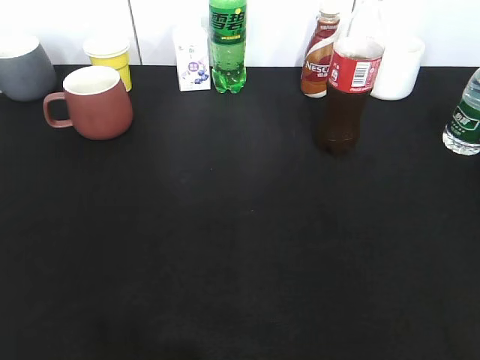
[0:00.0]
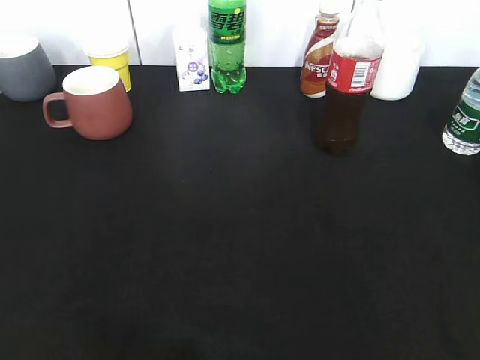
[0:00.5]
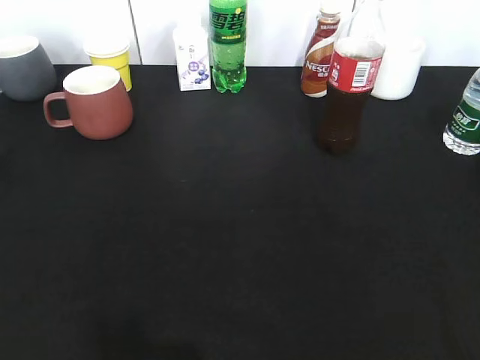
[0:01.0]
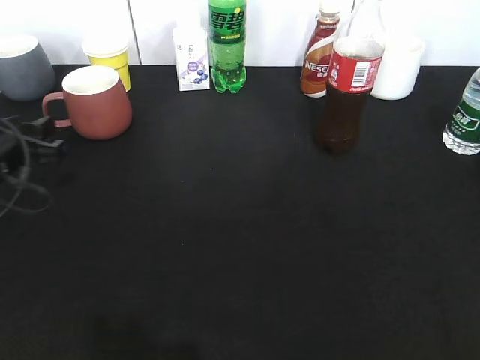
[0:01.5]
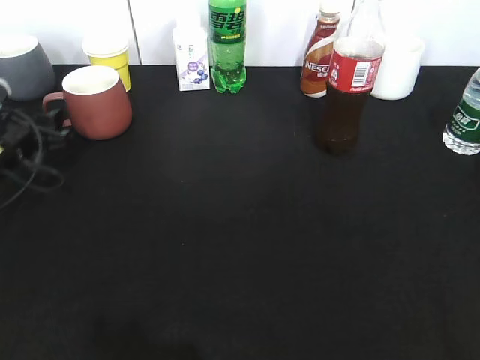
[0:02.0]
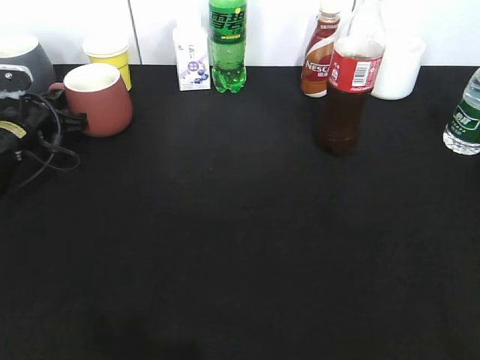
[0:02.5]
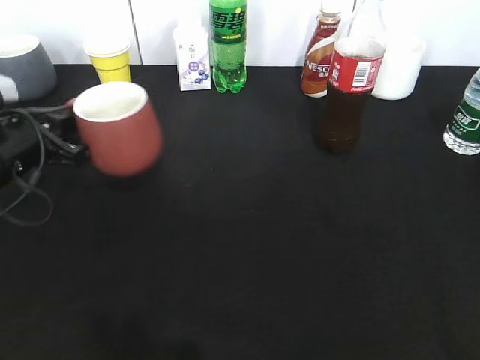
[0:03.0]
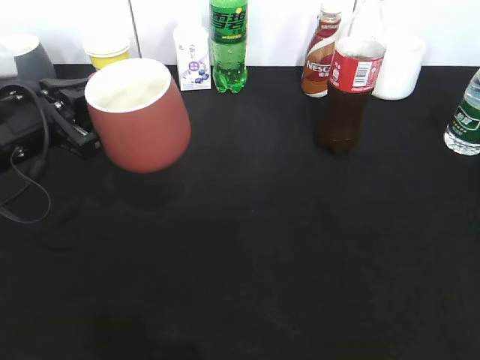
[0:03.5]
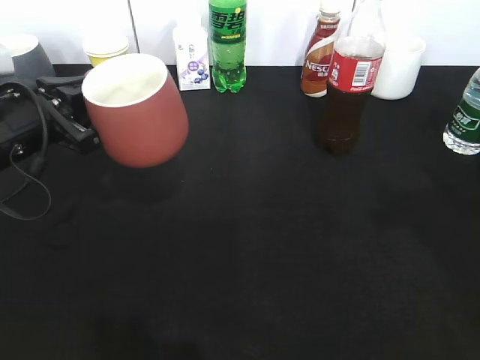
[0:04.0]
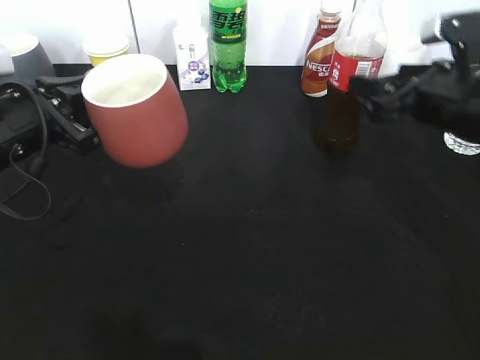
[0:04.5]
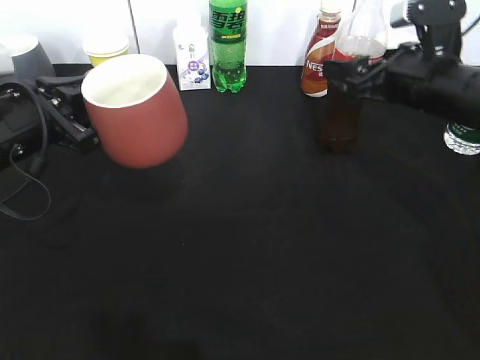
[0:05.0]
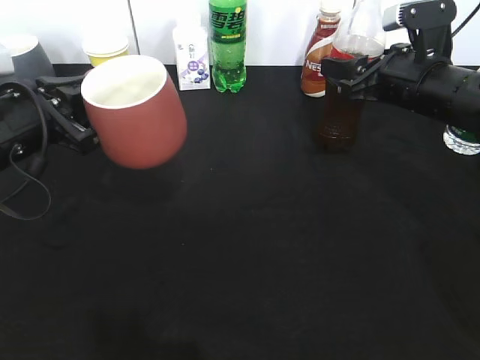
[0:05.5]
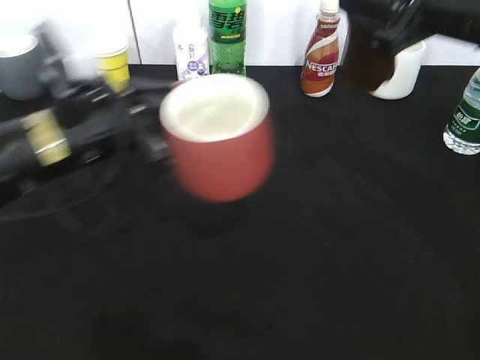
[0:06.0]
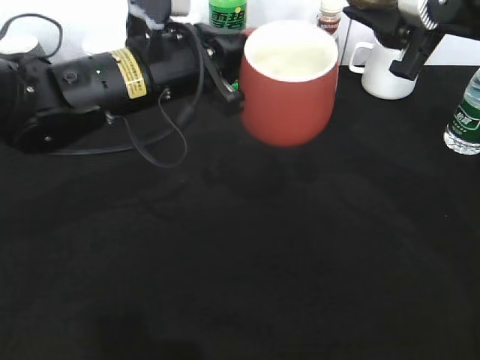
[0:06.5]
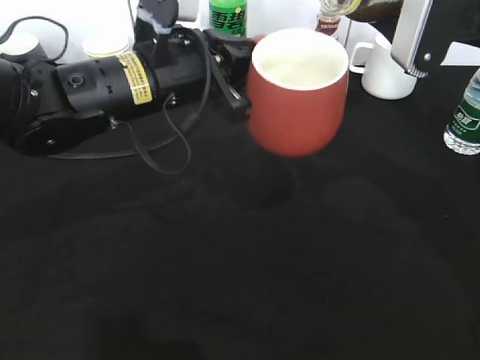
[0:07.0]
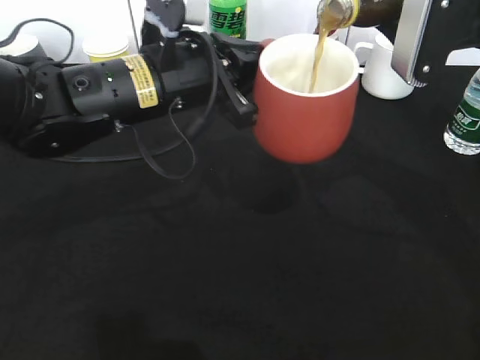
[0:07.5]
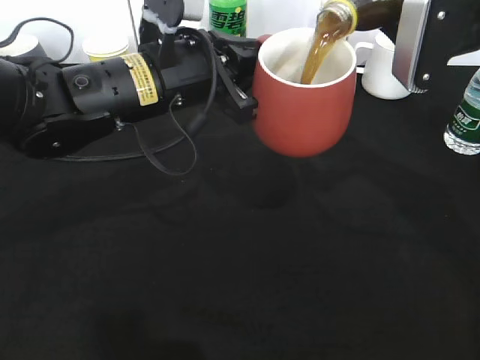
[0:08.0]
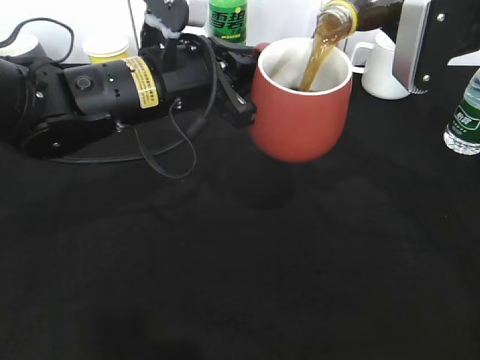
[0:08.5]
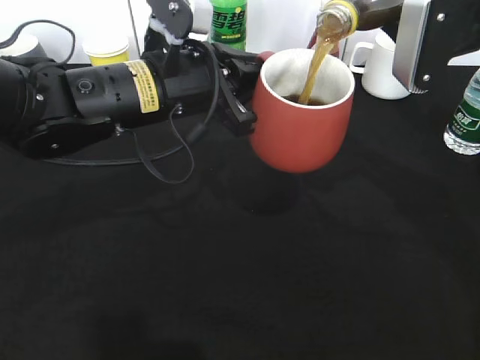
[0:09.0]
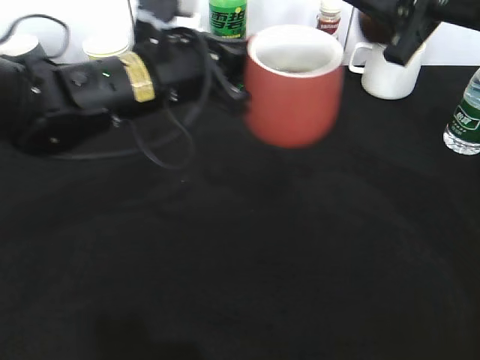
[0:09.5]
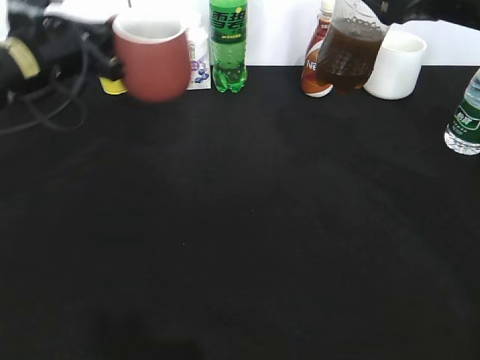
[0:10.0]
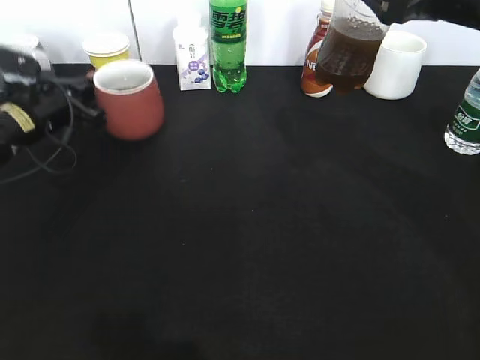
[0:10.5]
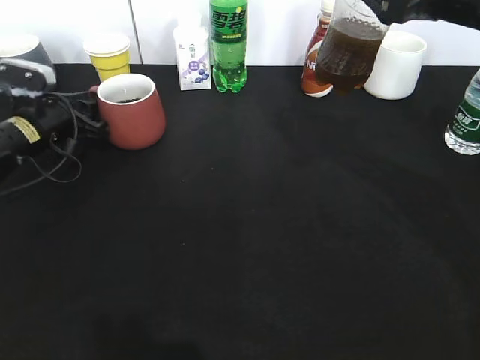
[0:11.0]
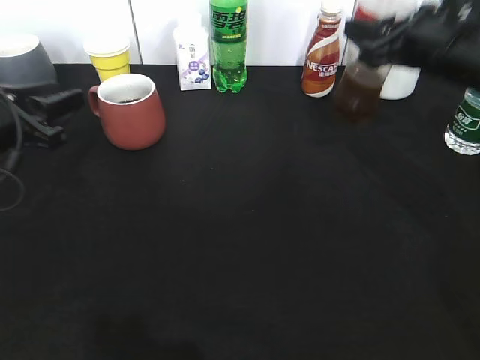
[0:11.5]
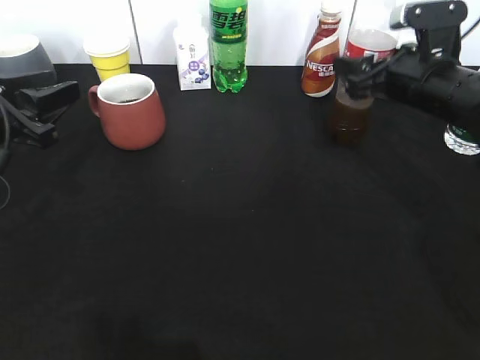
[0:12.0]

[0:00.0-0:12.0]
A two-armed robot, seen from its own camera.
Step, 0:00.0 to 0:02.5: Grasp the red cup with left gripper.
Step, 0:03.0 to 0:03.5: Lift the red cup with left gripper.
Step, 0:04.5 to 0:05.5: Grasp the bottle with cola with right gripper.
0:00.0 to 0:02.0: The left gripper heads forward and downward, covering some 40 cm, and opens up.
0:02.0 to 0:04.0: The right gripper shifts roughly 20 cm forward; the left gripper goes about 10 cm upward, backward and to the right, and closes.
0:04.0 to 0:06.0: The right gripper moves forward and to the left, approximately 15 cm, and closes up. The left gripper moves to the right, about 10 cm.
0:06.0 to 0:08.0: The left gripper is displaced to the right by some 5 cm.
0:08.0 to 0:10.0: The left gripper goes about 15 cm to the left and forward.
0:10.0 to 0:12.0: The left gripper travels backward by approximately 10 cm, and opens. The right gripper travels downward and forward by about 15 cm, and opens its fingers.

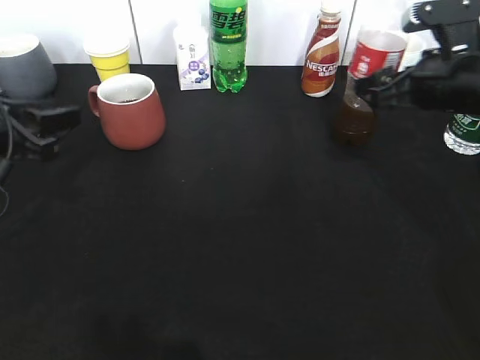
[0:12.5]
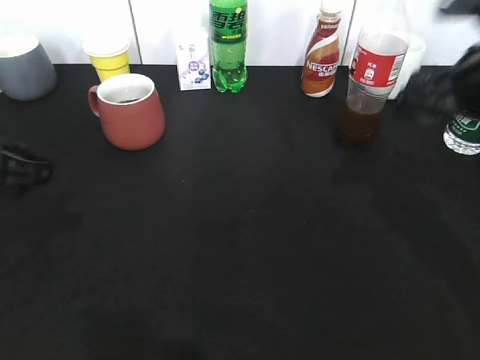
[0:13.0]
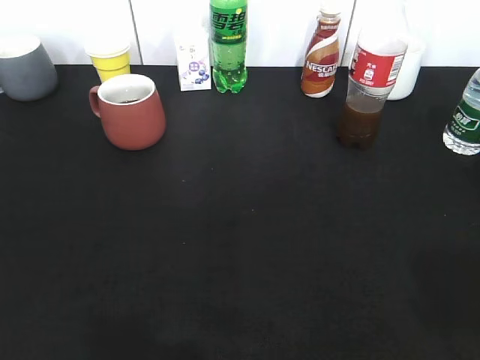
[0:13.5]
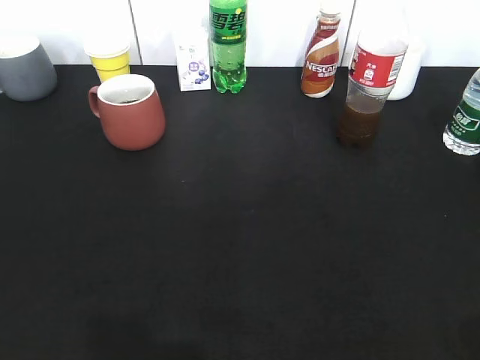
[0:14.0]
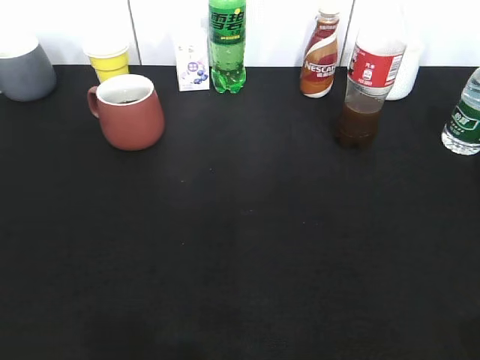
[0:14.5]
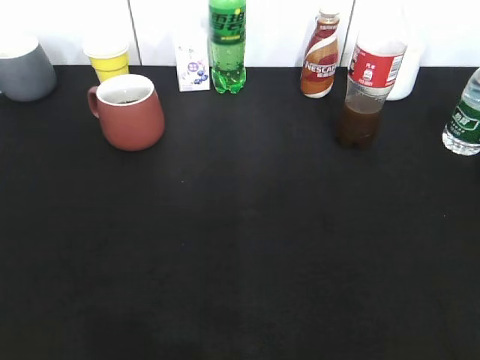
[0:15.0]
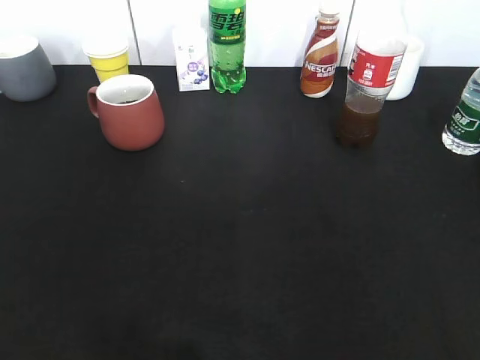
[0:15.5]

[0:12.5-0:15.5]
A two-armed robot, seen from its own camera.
0:12.5 to 0:14.0: Both grippers travel together backward, about 30 cm. The right gripper closes.
0:14.0 to 0:15.5: The grippers make only small movements.

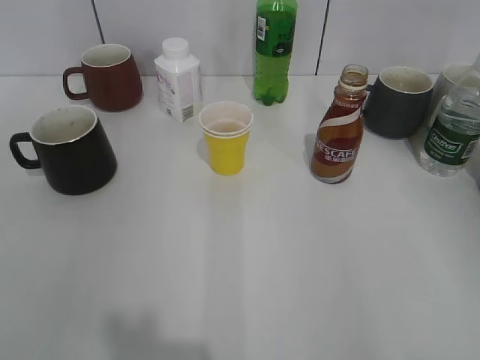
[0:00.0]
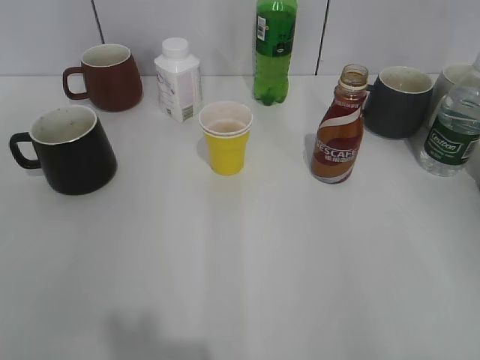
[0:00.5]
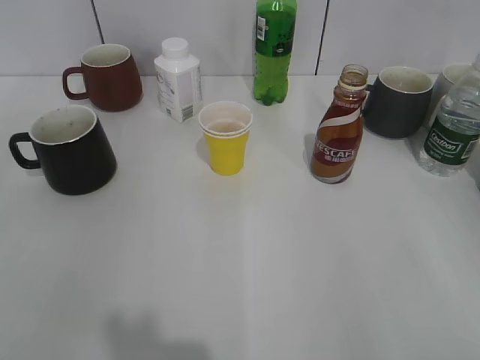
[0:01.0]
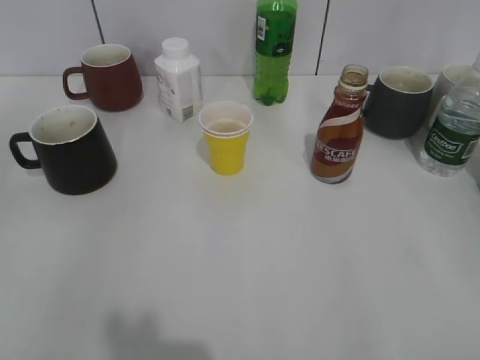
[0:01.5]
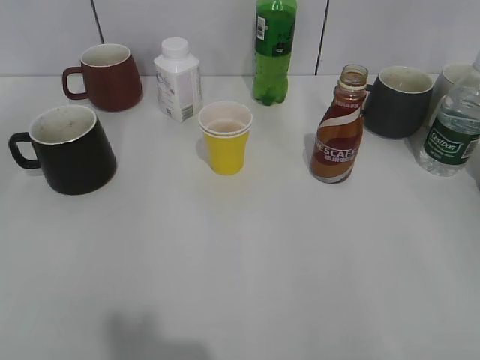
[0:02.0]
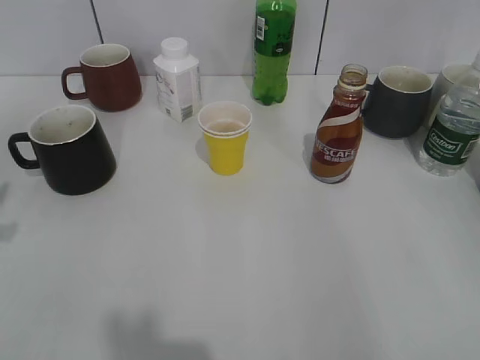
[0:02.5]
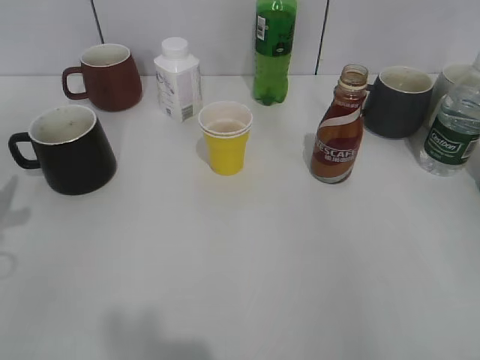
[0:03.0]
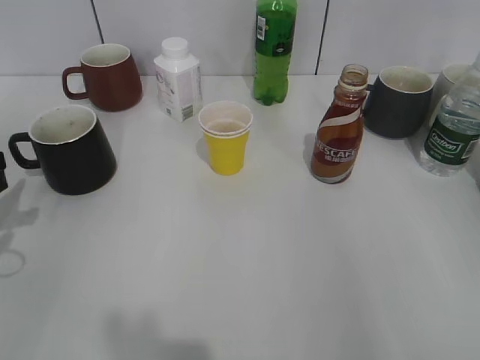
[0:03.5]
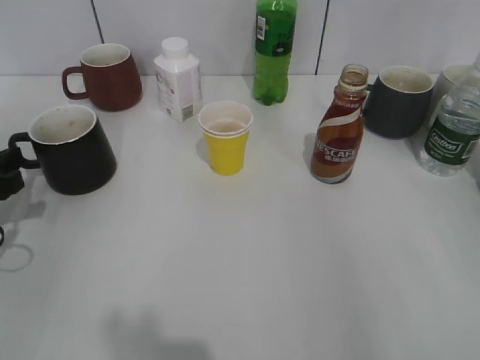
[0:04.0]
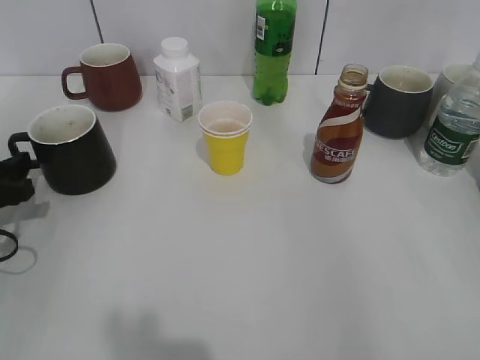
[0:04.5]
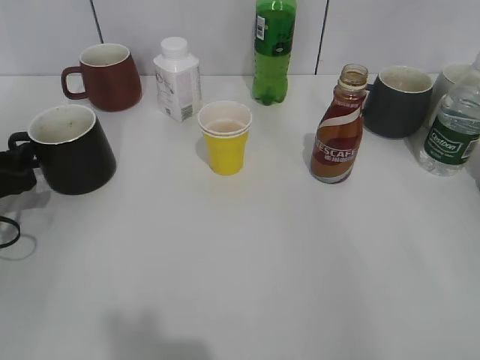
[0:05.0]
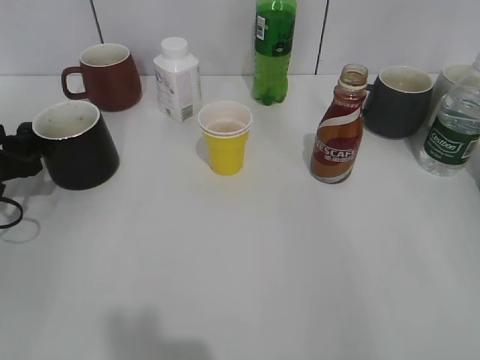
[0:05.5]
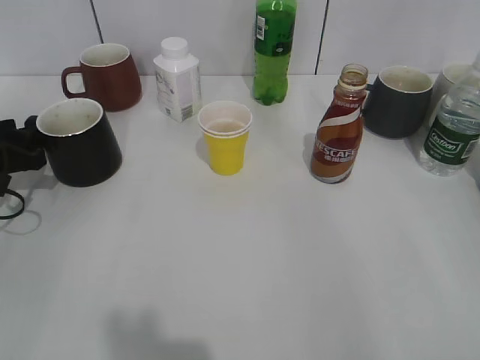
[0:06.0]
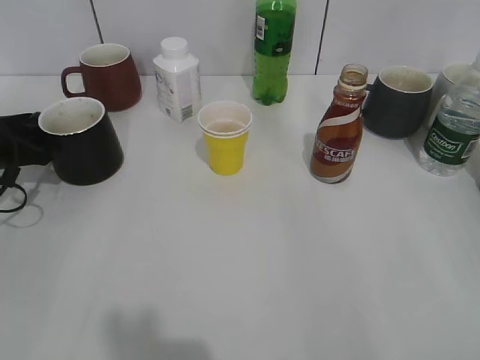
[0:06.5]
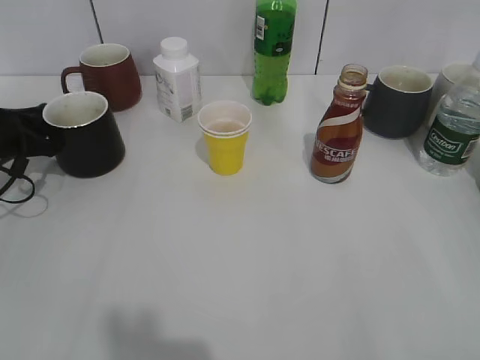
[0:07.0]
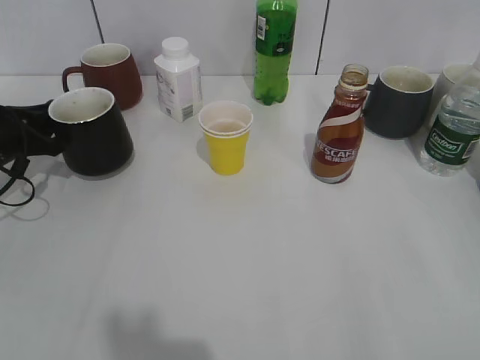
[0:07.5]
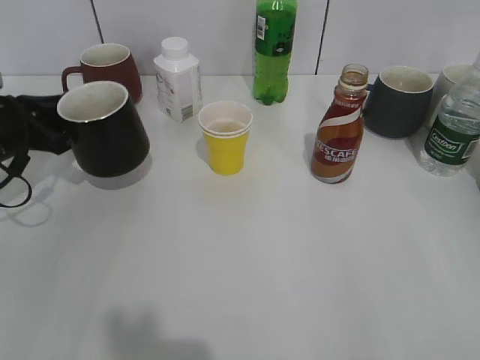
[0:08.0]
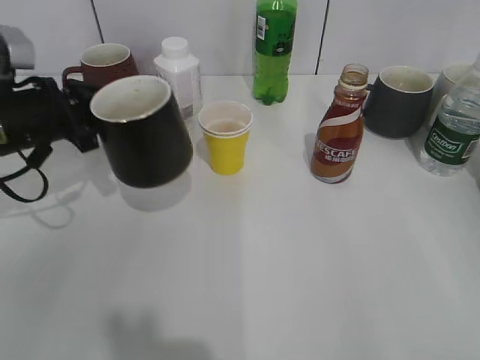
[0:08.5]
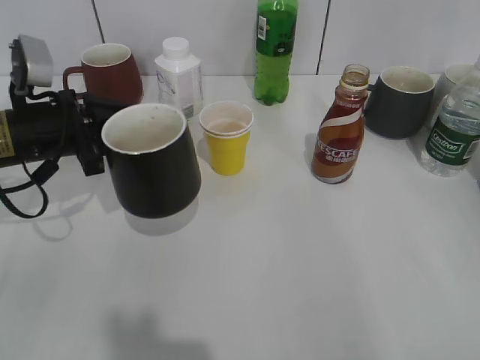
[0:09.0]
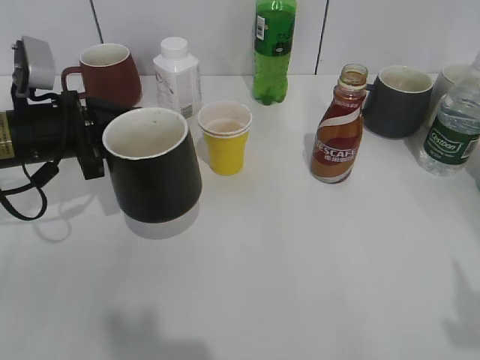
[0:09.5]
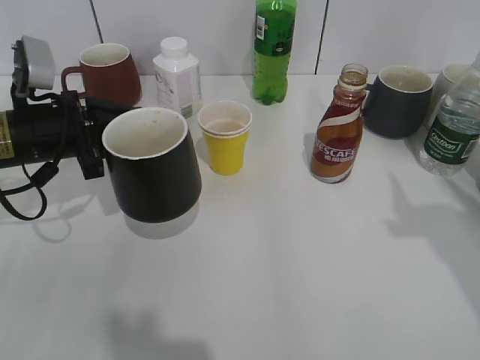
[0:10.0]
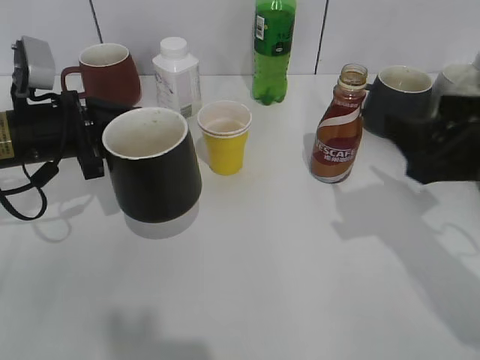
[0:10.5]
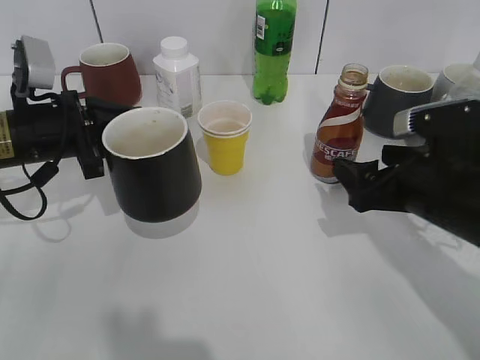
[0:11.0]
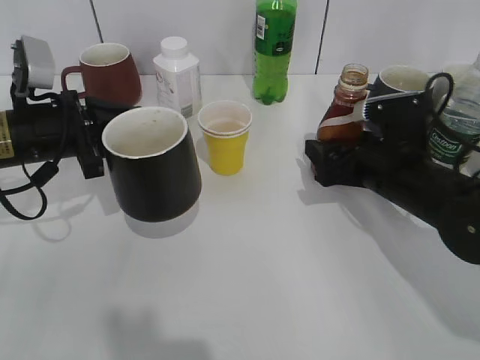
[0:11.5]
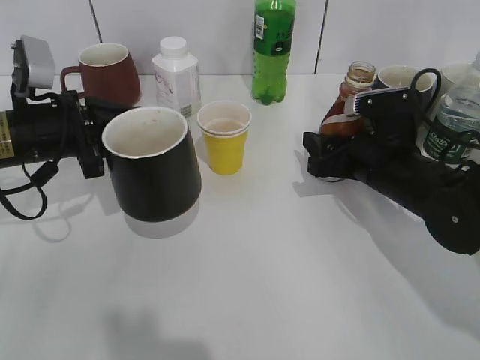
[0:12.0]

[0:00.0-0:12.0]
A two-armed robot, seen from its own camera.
Step, 0:01.5 to 0:07.0: Grasp the black cup with left gripper.
Step, 0:07.5 to 0:08.5: Lift the black cup with left gripper.
0:02.0 to 0:04.0: The left gripper shifts approximately 20 cm downward and forward.
0:04.0 to 0:06.0: The left gripper goes some 5 cm forward.
0:06.0 to 0:08.0: The left gripper closes its fingers.
0:08.0 to 0:10.0: The right gripper goes about 15 cm forward. The left gripper is displaced to the right by some 5 cm.
0:10.0 to 0:12.0: The right gripper heads downward, forward and to the left, covering some 30 cm, and closes its fingers.
